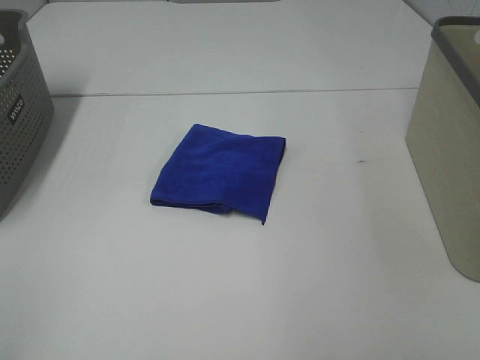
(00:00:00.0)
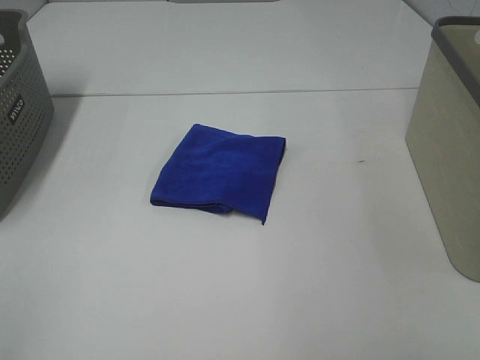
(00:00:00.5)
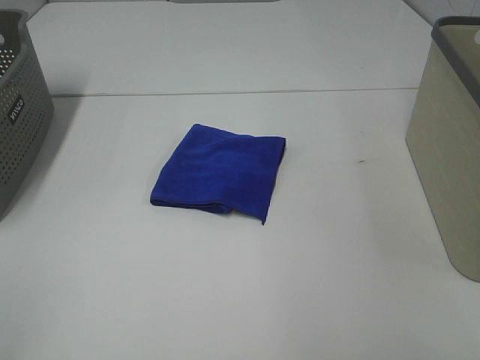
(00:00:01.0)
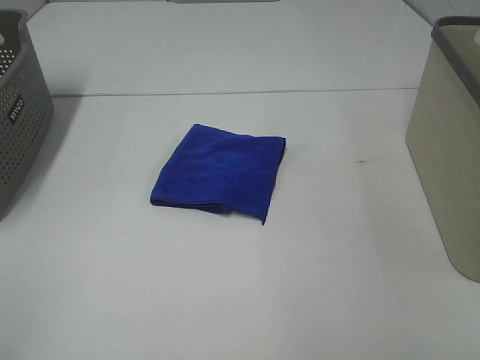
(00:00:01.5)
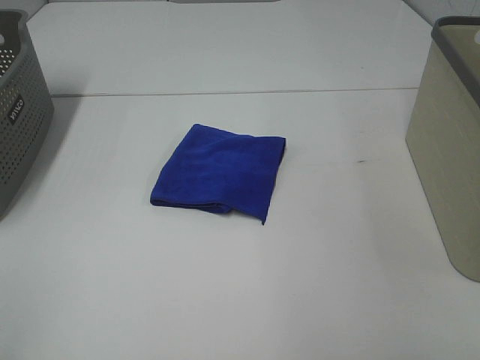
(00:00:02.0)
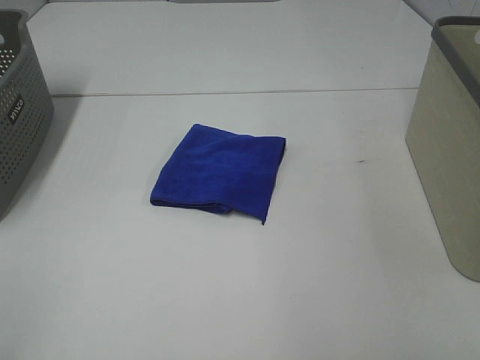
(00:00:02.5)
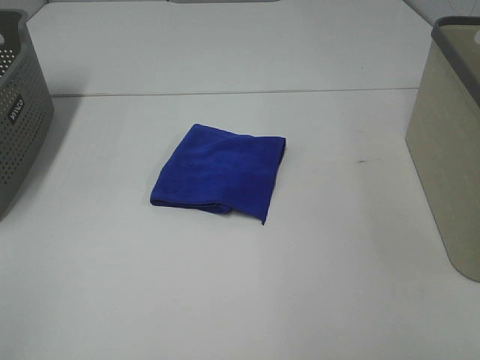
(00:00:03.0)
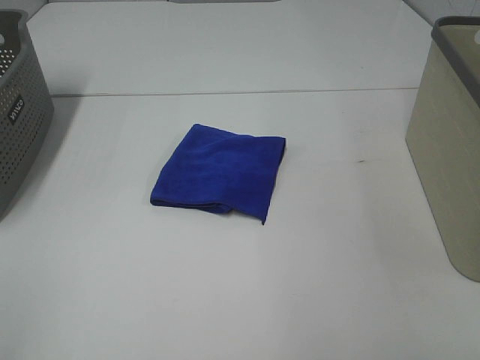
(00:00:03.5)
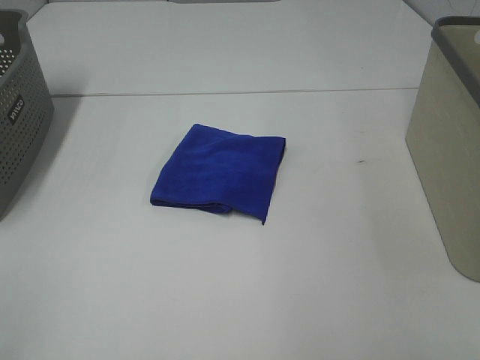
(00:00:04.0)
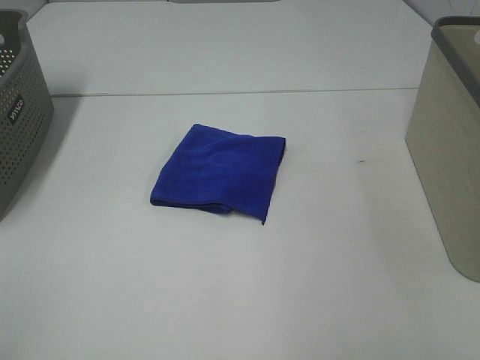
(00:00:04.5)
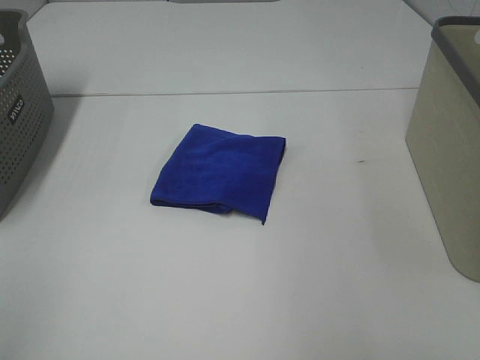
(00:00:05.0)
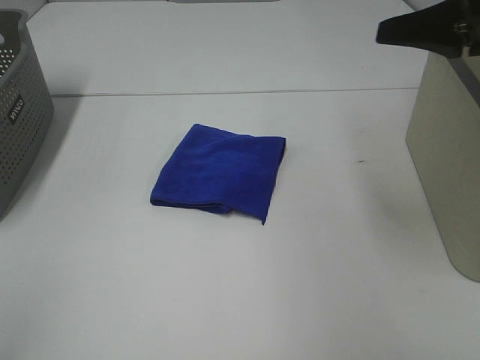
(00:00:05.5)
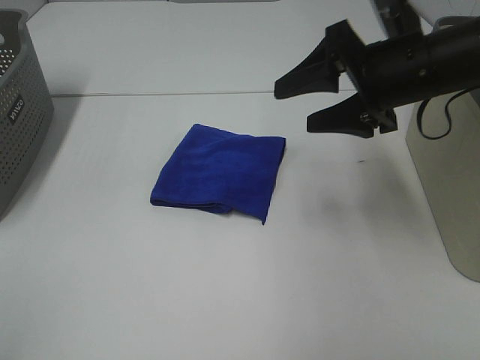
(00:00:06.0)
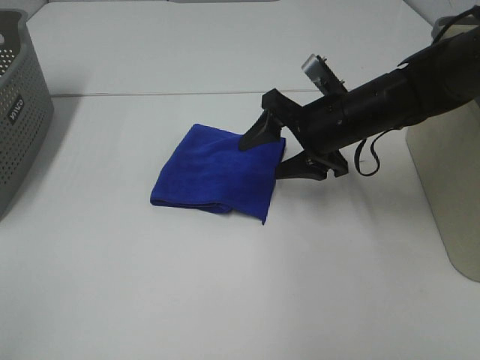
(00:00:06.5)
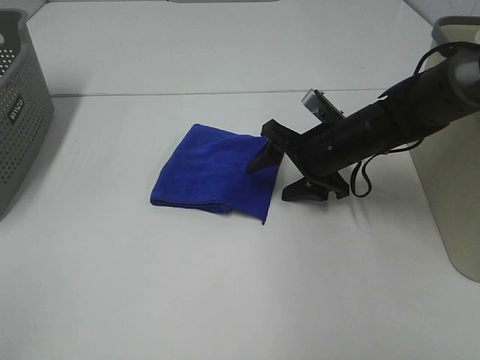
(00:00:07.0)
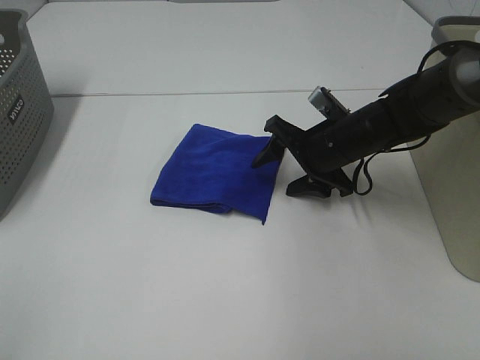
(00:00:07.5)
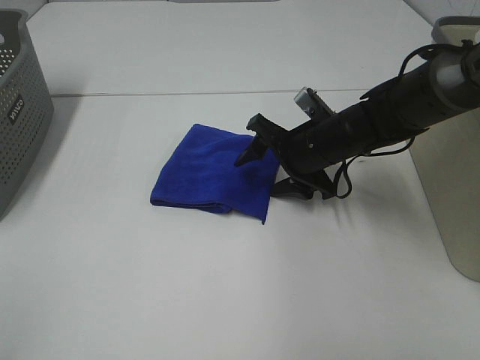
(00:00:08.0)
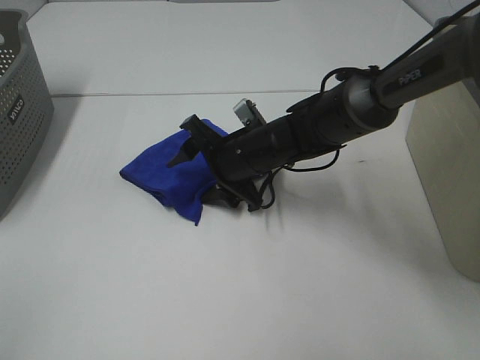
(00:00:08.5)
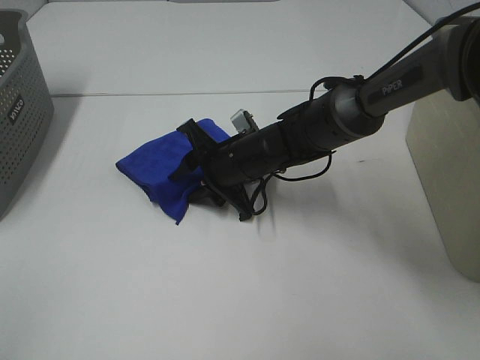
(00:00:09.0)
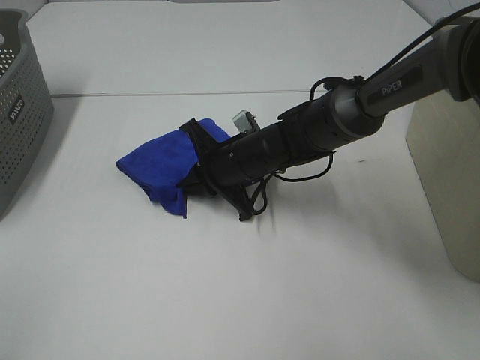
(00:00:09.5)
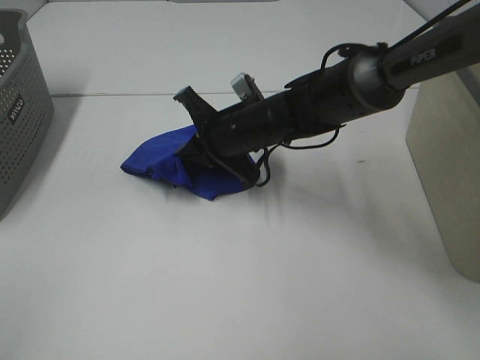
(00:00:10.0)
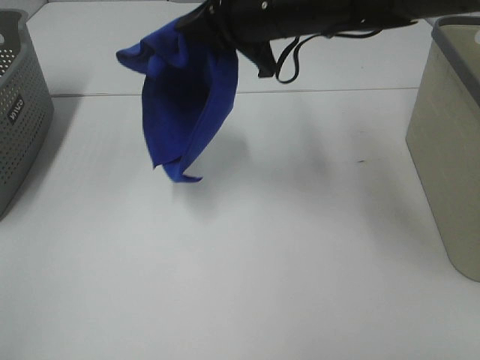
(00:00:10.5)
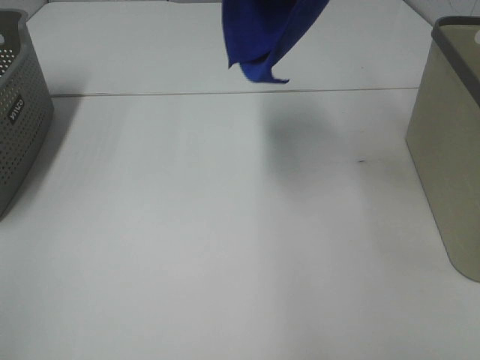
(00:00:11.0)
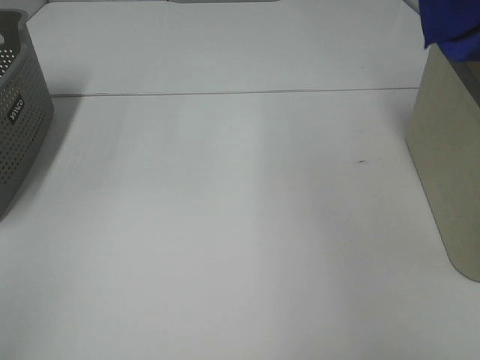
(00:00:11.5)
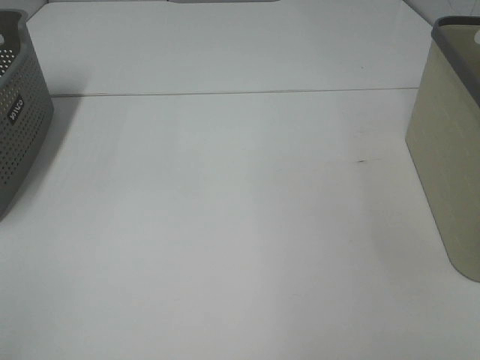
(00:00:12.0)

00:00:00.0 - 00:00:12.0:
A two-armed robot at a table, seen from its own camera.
Step, 00:00:00.0 - 00:00:09.0: Right hand: grab the folded blue towel.
00:00:00.0 - 00:00:04.0: Both grippers stay put.
00:00:04.0 - 00:00:06.0: The right gripper heads forward and to the left, covering approximately 35 cm.
00:00:06.0 - 00:00:08.0: The right gripper shifts roughly 15 cm downward and to the left.
00:00:08.0 - 00:00:10.0: The right gripper is displaced to the left by roughly 10 cm, and closes.
00:00:10.0 - 00:00:12.0: The right gripper shifts about 50 cm to the right and upward.
